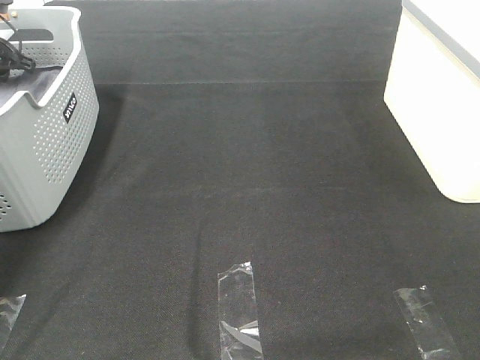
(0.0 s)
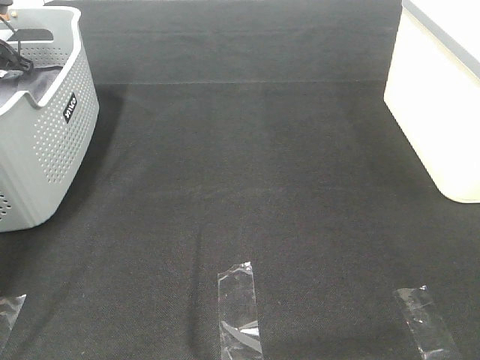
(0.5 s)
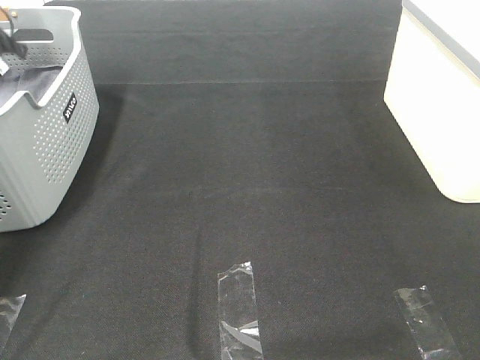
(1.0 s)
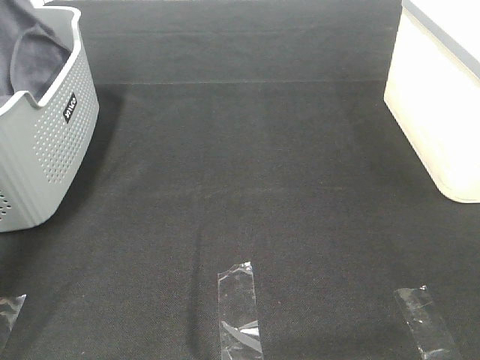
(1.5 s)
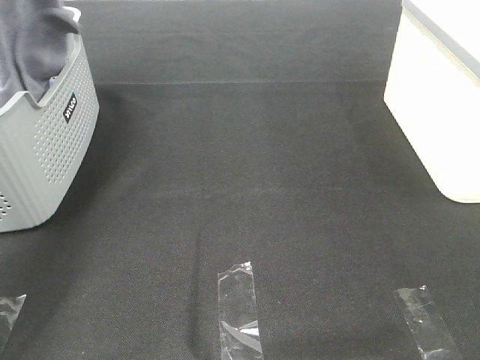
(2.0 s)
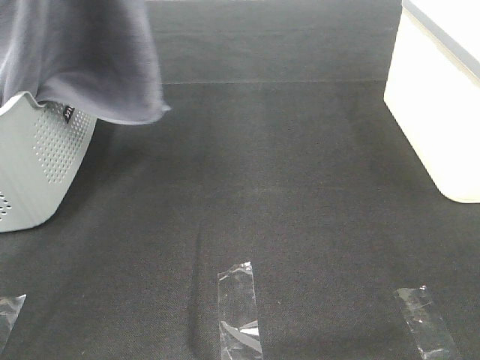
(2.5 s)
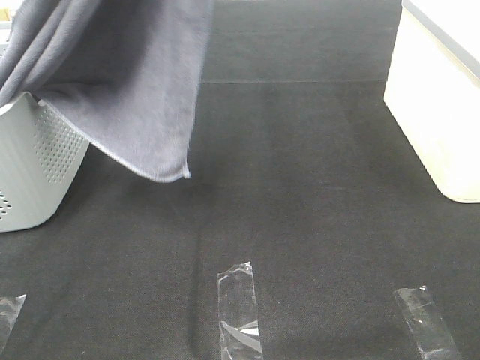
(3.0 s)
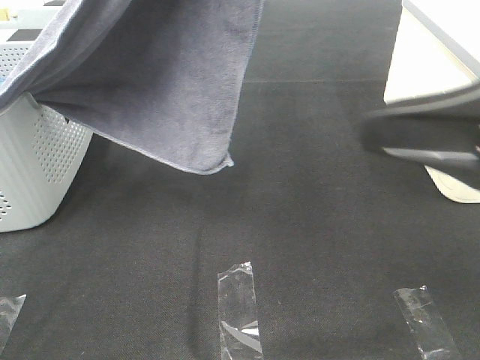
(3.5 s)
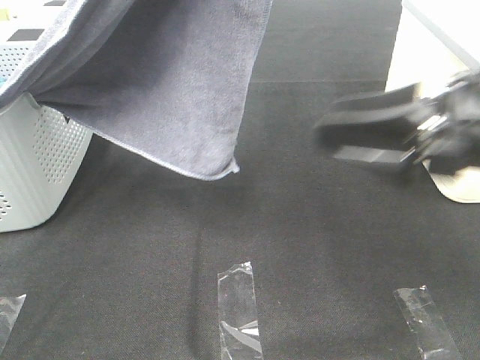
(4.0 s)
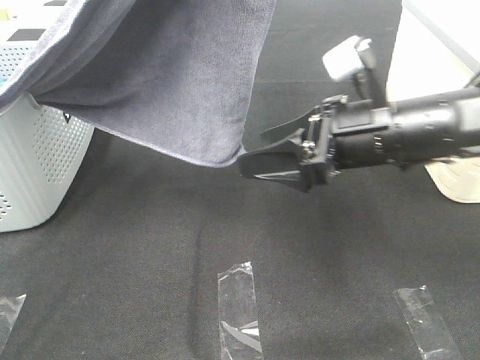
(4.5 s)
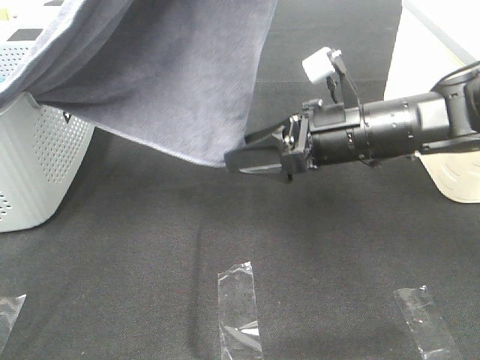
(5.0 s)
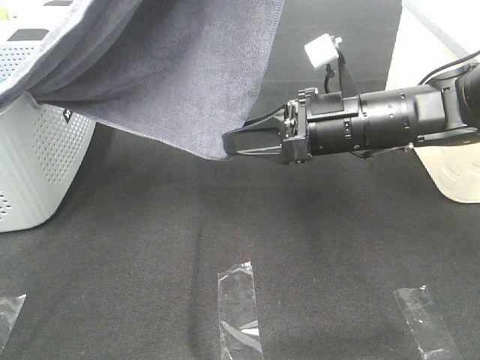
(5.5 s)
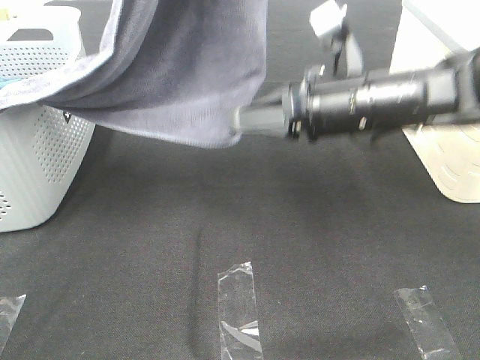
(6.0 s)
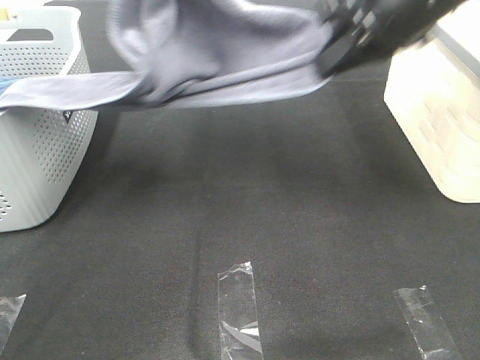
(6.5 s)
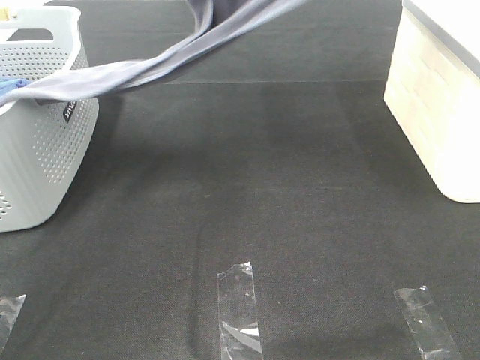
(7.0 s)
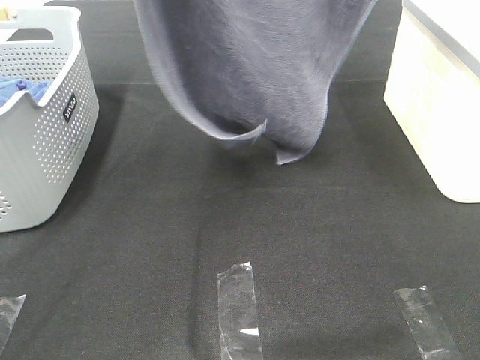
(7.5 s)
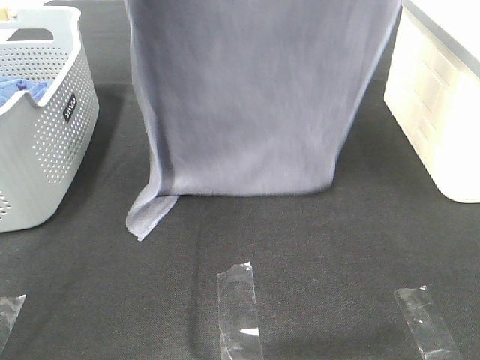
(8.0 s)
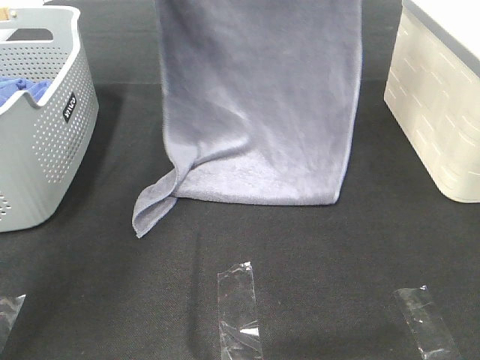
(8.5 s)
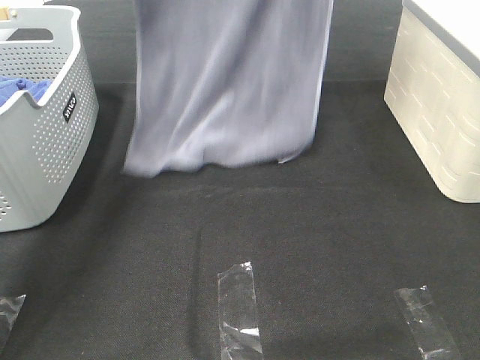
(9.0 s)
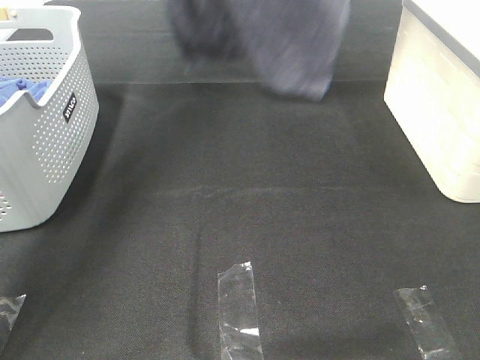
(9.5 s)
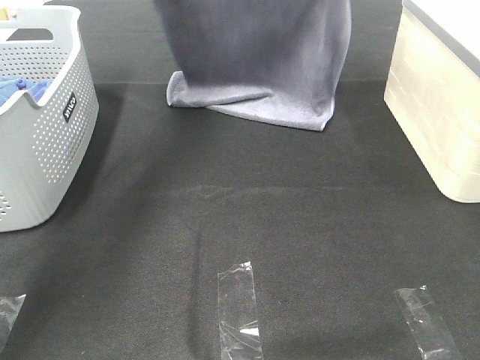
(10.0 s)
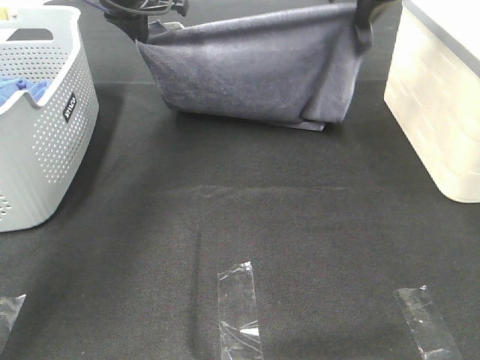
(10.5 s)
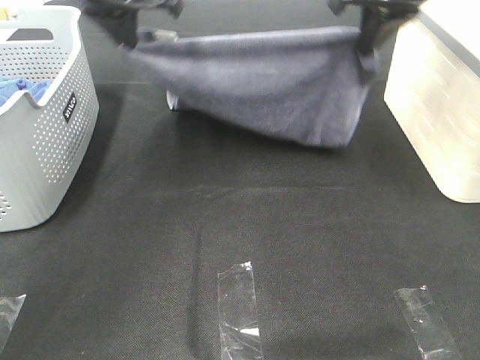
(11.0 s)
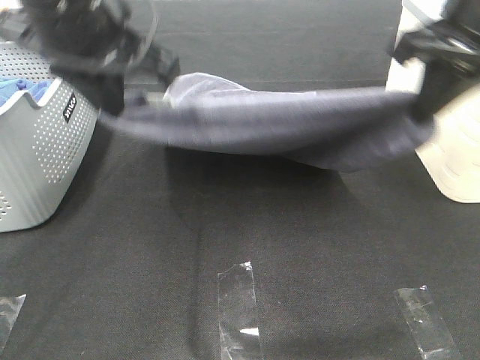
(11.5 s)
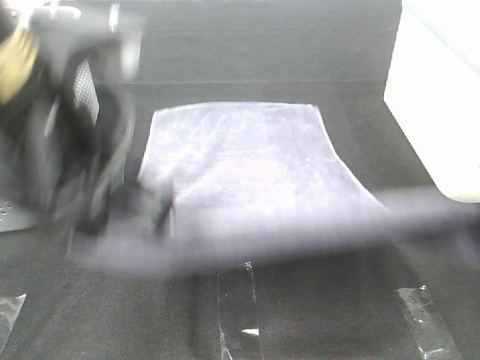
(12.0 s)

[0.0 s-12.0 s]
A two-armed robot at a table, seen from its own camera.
Task of the whole recording: Remove the towel and place it.
Step, 2.0 to 4.5 s: Right hand: grab a corner of the grey towel and straighten it.
Step, 5.0 to 9.0 s: Left hand: spread the grey towel flat on the table.
Step, 5.0 to 9.0 s: Right hand: spread the grey towel flat on the table.
0.0 to 2.0 s: The left gripper is displaced upward, backward and to the right by roughly 30 cm, and closes its fingers.
2.0 to 4.0 s: The left gripper travels to the right and backward by approximately 25 cm. The right gripper is displaced forward by about 20 cm.
4.0 to 6.0 s: The right gripper shifts some 10 cm forward and to the left, and closes.
6.0 to 8.0 s: The right gripper is displaced upward by about 25 cm. The left gripper goes up and down, approximately 15 cm each way, reversing 2 times.
8.0 to 10.0 s: The right gripper goes up and down, roughly 15 cm each way, reversing 2 times; the left gripper goes up and down, roughly 15 cm each way, reversing 2 times.
10.0 to 12.0 s: Both grippers move backward, about 35 cm.

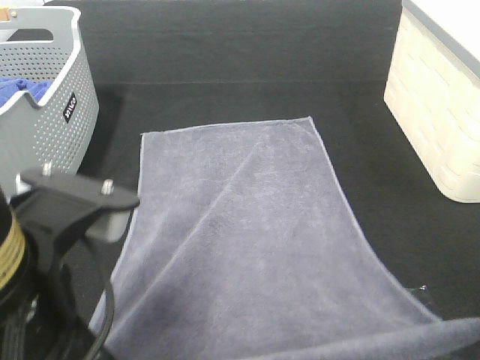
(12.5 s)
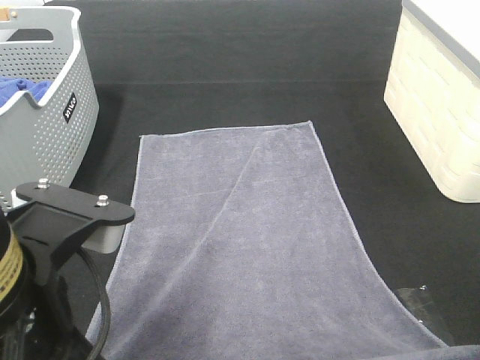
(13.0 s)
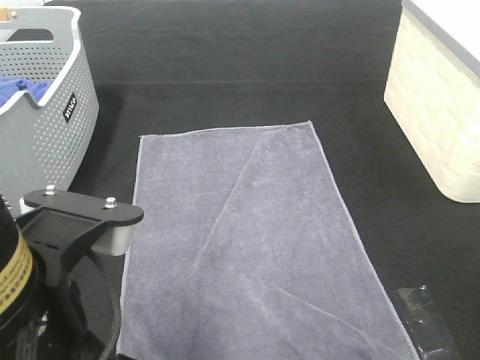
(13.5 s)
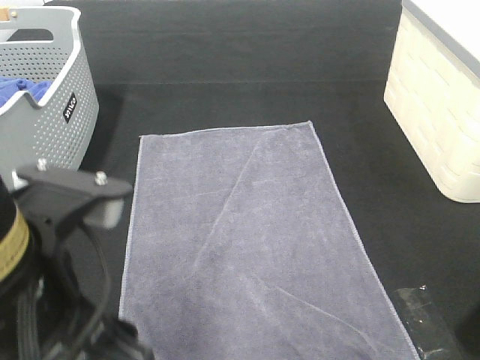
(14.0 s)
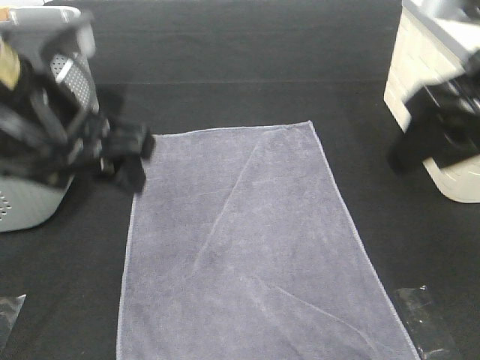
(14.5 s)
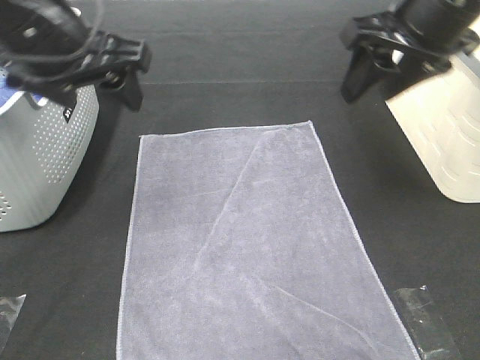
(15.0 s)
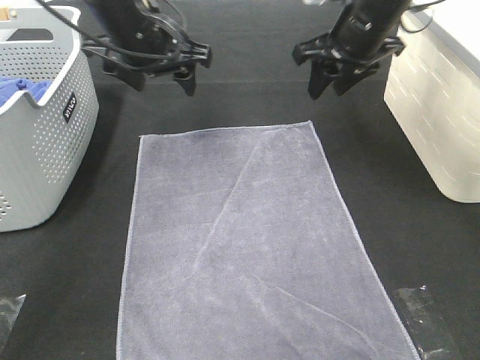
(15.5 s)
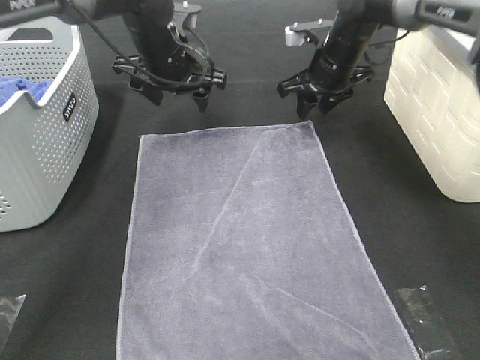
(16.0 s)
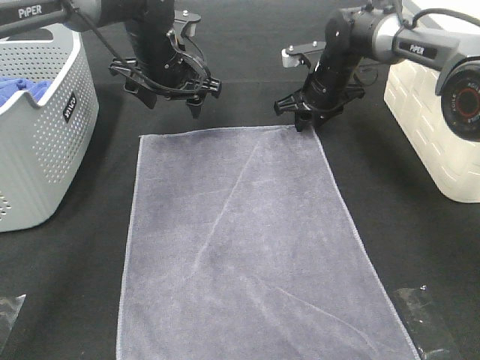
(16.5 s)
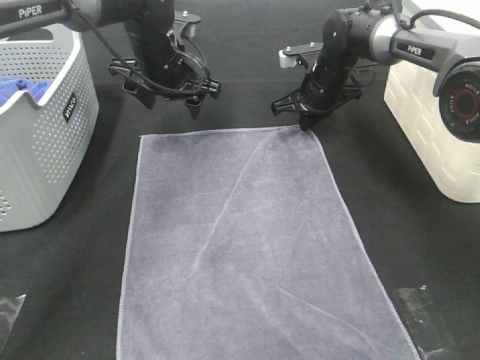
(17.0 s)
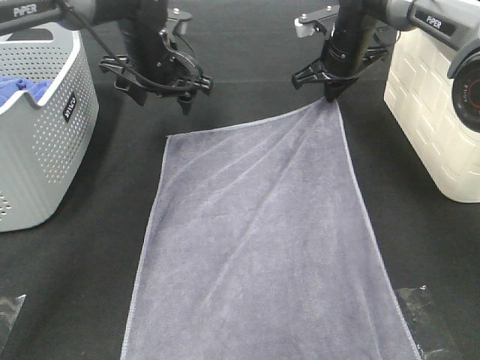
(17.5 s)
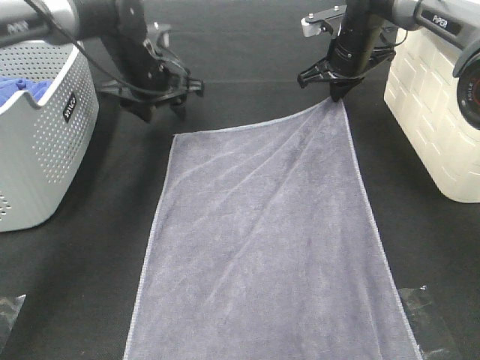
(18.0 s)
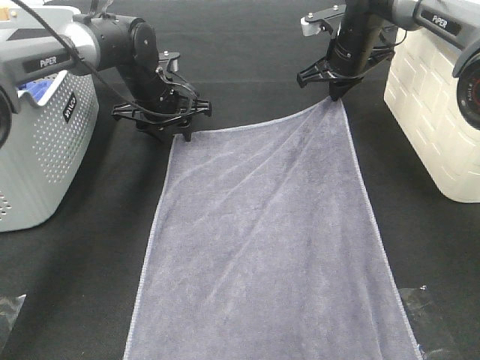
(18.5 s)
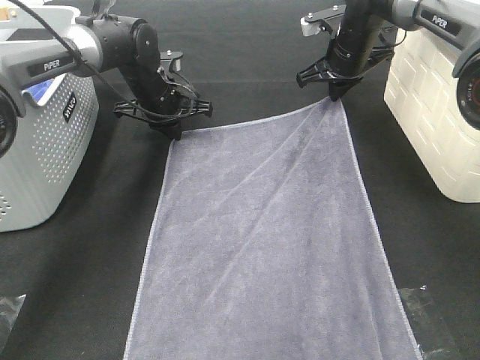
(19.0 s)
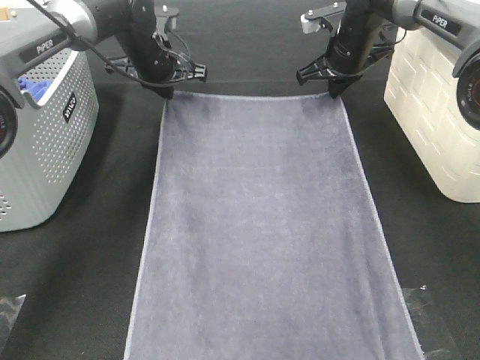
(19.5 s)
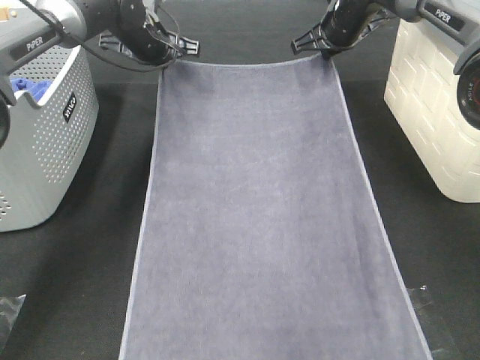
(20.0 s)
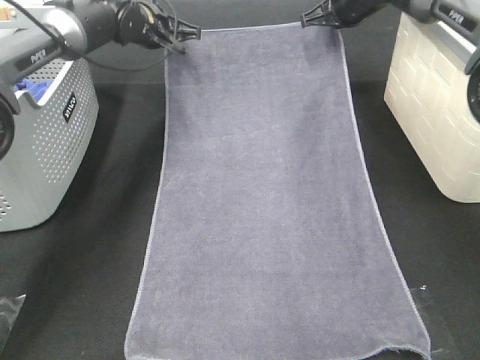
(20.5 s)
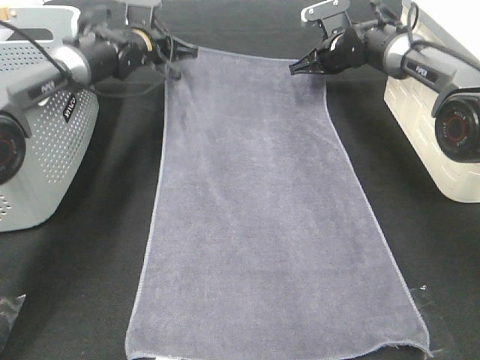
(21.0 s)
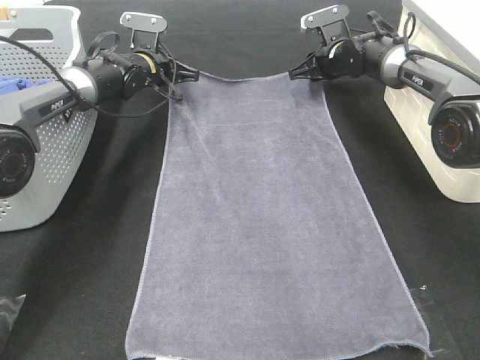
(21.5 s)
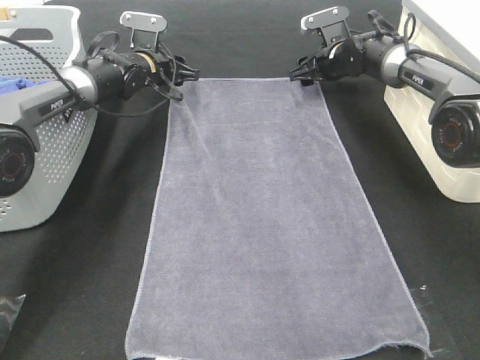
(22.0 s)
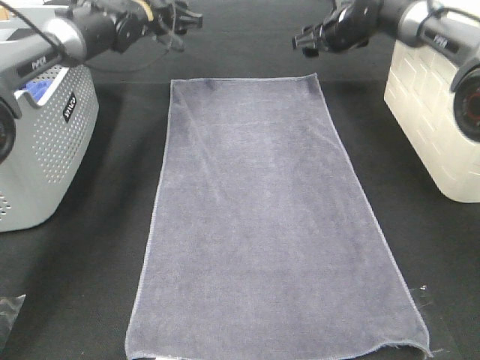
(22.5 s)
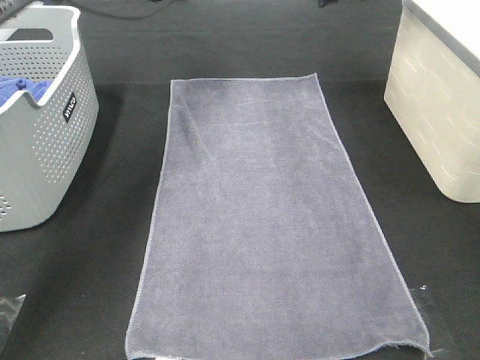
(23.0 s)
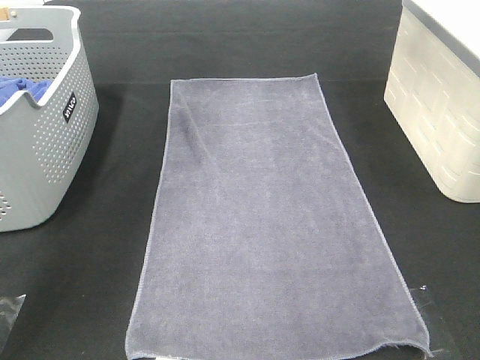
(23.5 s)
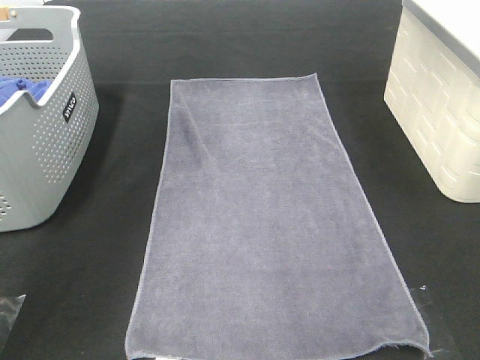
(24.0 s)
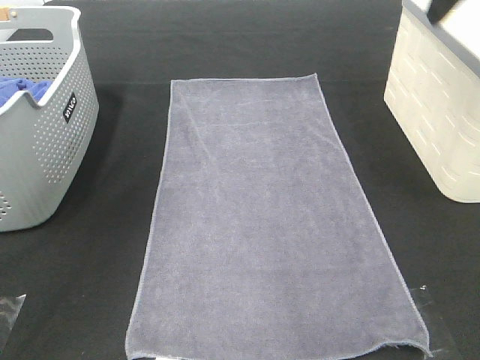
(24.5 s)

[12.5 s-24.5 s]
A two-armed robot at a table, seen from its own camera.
Task of the whole recording: Remove the towel and place it.
Step, 12.5 to 16.0 s: Left hand:adjust the gray towel.
Step, 12.5 to 16.0 s: Right hand:adjust the gray towel.
12.5 to 14.5 s: The grippers both shift forward by approximately 10 cm. The right gripper opens up. The left gripper opens up.
14.5 to 16.5 s: The left gripper heads forward, covering some 25 cm; the right gripper goes about 35 cm forward and downward.
16.5 to 18.5 s: The right gripper travels upward by some 5 cm, and closes up. The left gripper shifts about 10 cm downward.
18.5 to 20.5 s: The left gripper heads upward and forward, covering approximately 10 cm, and closes its fingers, while the right gripper shifts by about 5 cm.
20.5 to 22.5 s: The right gripper reaches some 10 cm downward, then returns, and opens. Meanwhile the left gripper travels downward and back again, about 10 cm each way, and opens its fingers.
22.5 to 24.5 s: The grippers both shift backward and upward by approximately 35 cm.

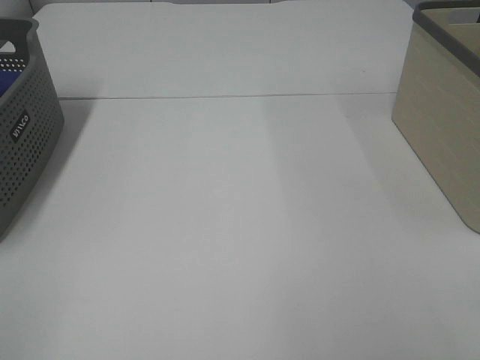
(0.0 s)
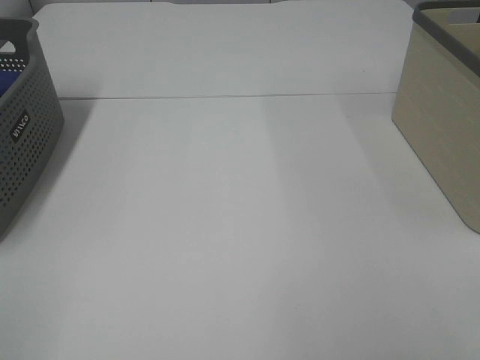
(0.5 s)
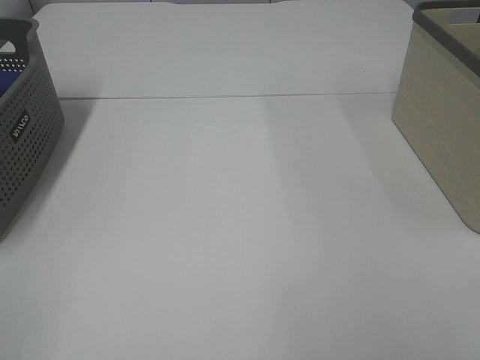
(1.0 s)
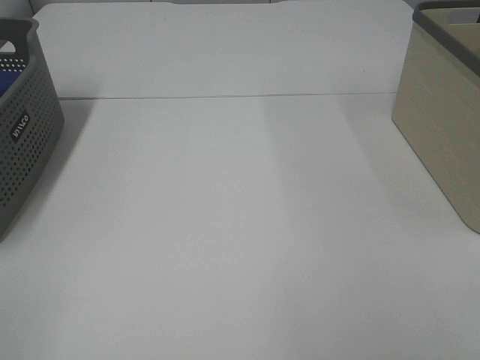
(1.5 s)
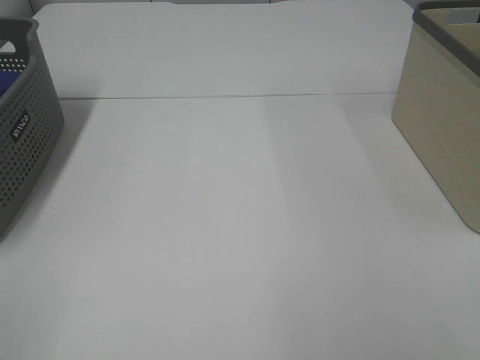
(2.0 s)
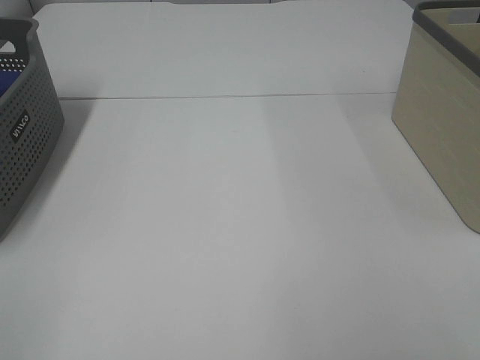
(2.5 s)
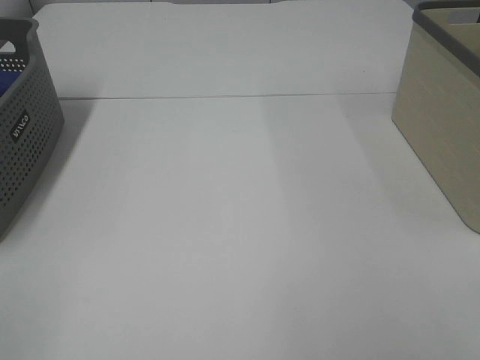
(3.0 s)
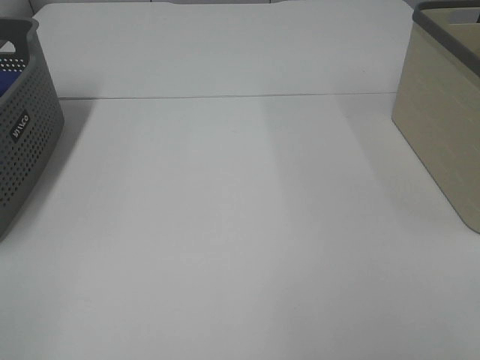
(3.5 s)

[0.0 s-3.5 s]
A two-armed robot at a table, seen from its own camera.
Task of the whole recording: Remove the towel and place it.
0.0 to 3.5 s: Both grippers stay put.
